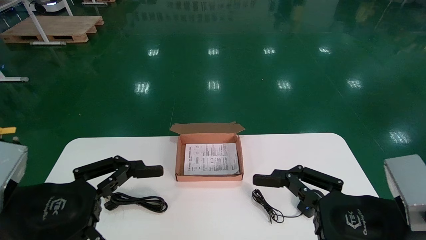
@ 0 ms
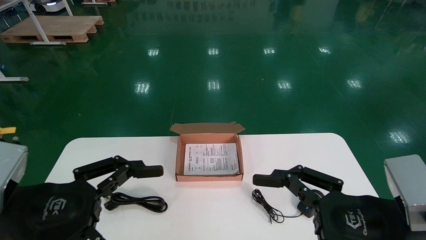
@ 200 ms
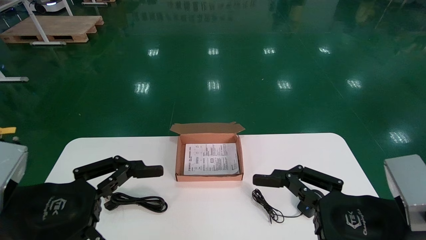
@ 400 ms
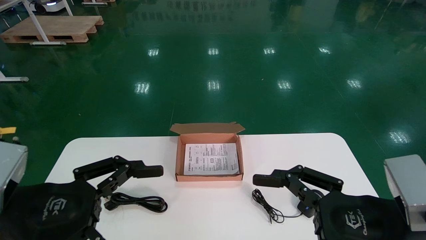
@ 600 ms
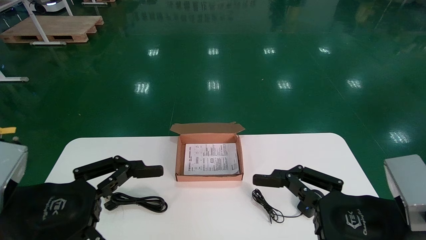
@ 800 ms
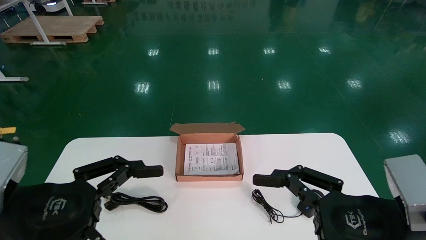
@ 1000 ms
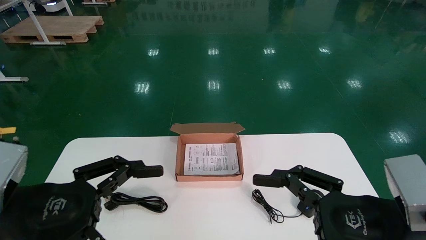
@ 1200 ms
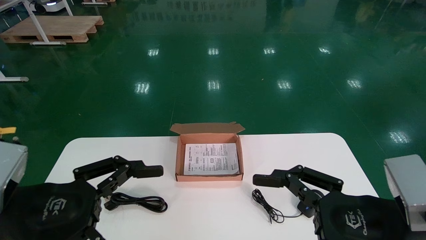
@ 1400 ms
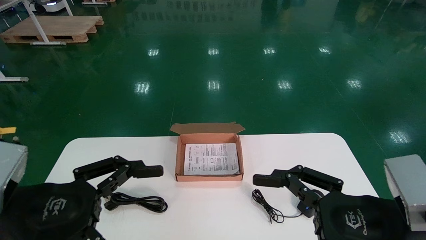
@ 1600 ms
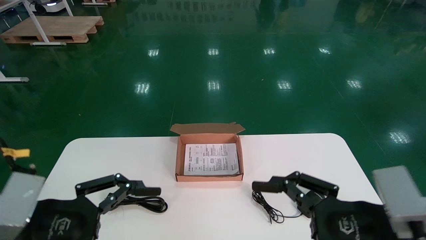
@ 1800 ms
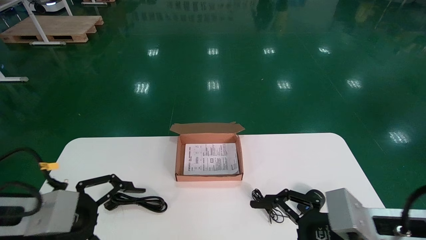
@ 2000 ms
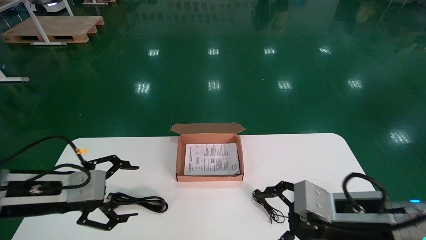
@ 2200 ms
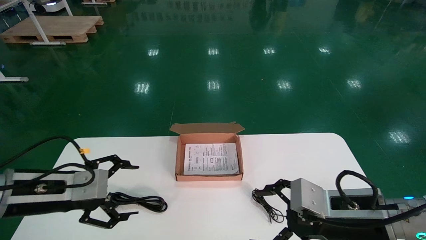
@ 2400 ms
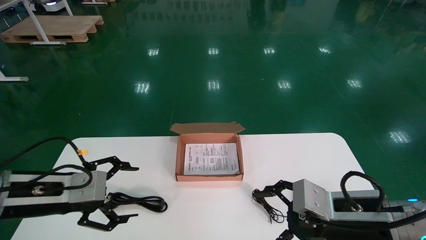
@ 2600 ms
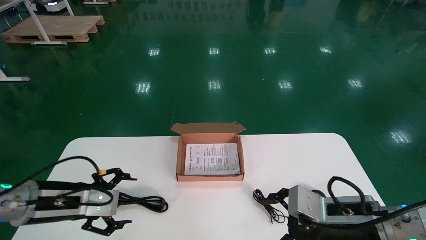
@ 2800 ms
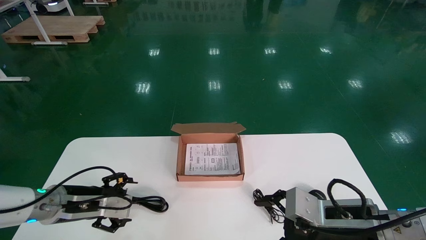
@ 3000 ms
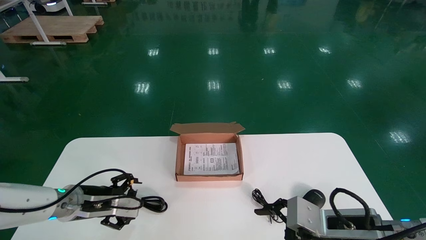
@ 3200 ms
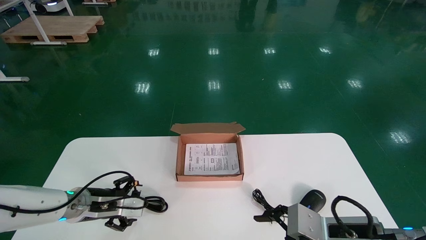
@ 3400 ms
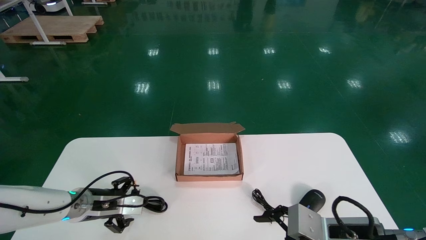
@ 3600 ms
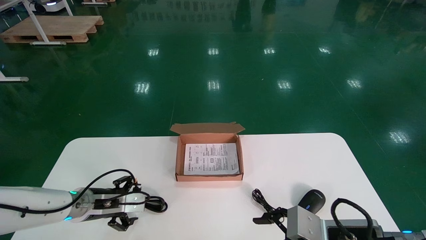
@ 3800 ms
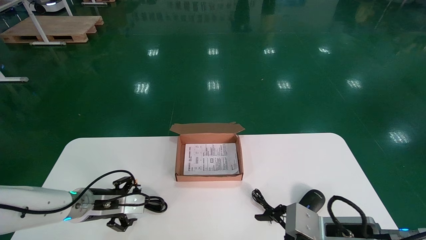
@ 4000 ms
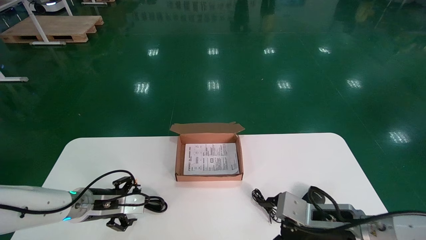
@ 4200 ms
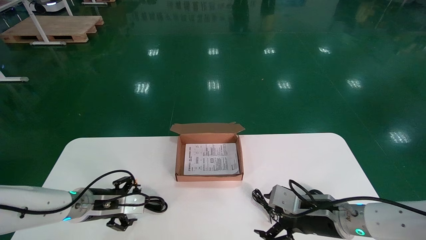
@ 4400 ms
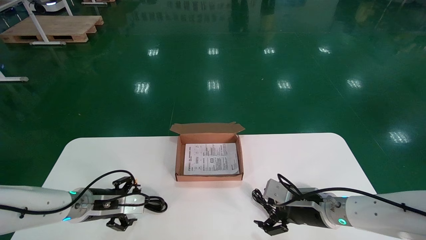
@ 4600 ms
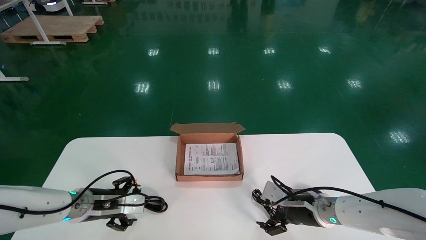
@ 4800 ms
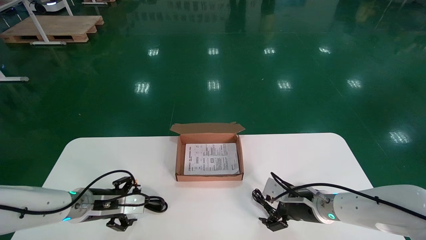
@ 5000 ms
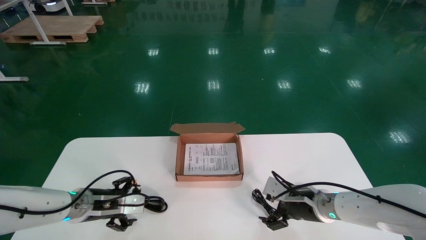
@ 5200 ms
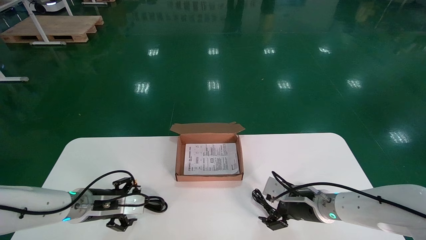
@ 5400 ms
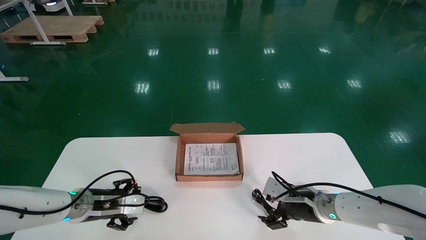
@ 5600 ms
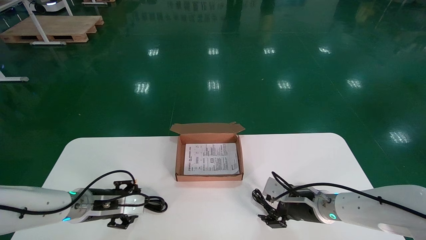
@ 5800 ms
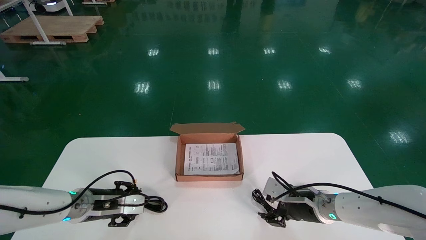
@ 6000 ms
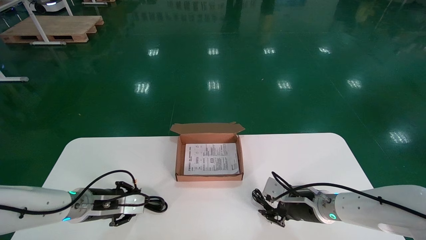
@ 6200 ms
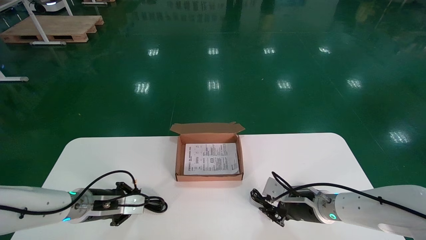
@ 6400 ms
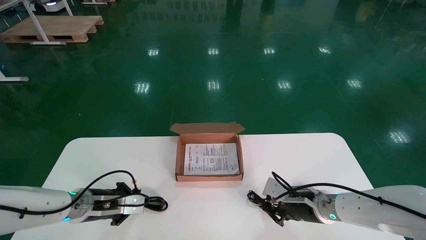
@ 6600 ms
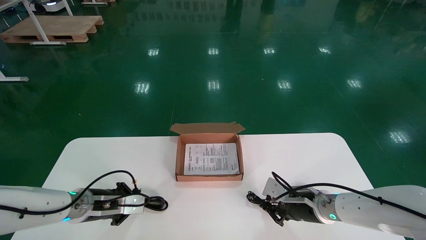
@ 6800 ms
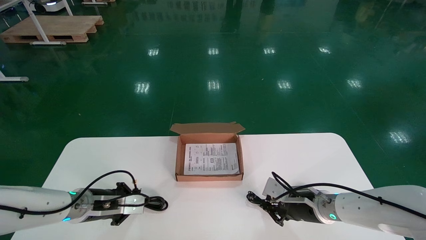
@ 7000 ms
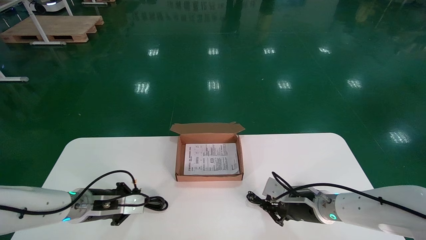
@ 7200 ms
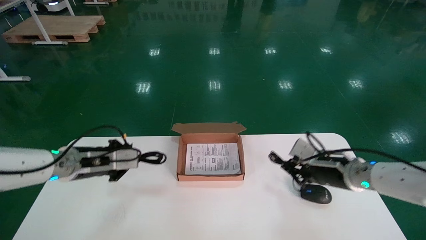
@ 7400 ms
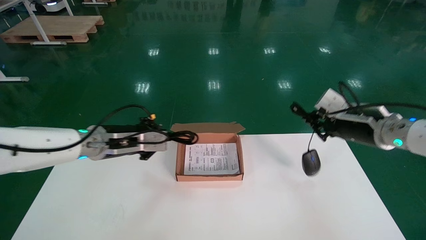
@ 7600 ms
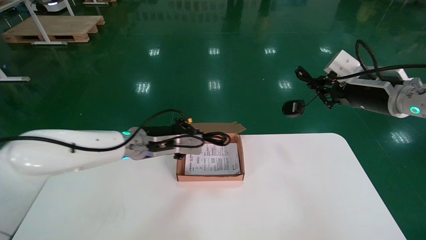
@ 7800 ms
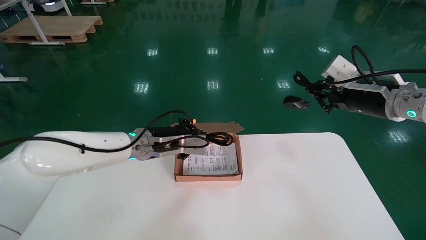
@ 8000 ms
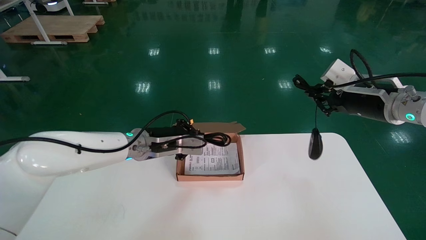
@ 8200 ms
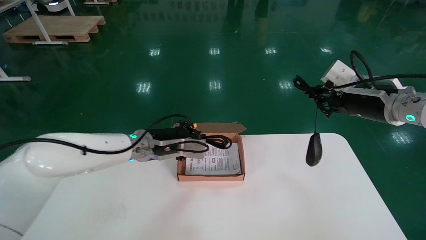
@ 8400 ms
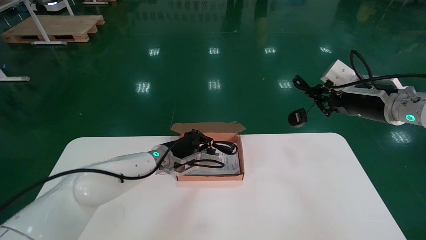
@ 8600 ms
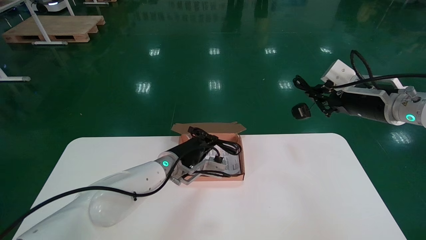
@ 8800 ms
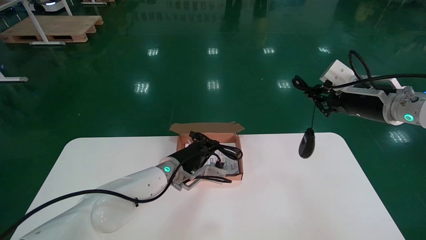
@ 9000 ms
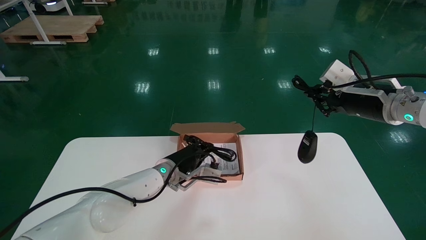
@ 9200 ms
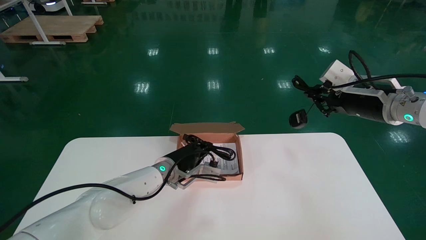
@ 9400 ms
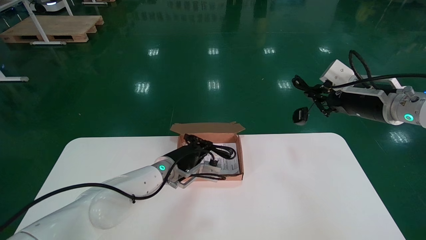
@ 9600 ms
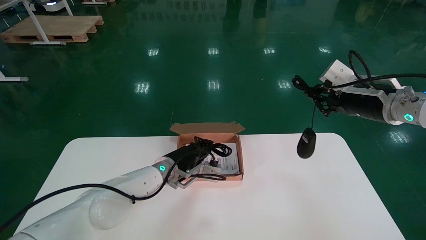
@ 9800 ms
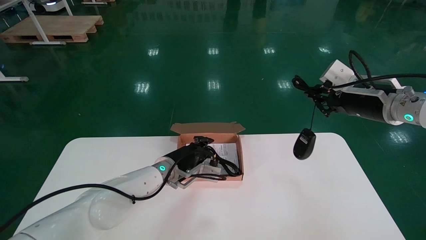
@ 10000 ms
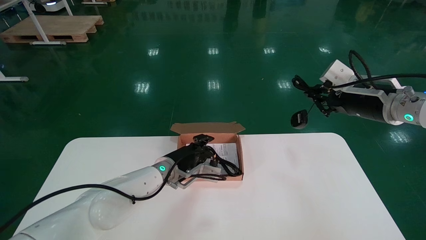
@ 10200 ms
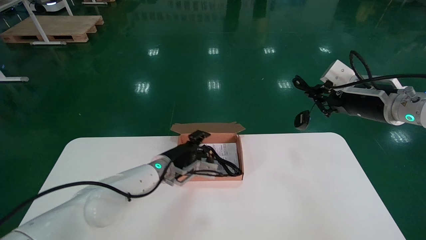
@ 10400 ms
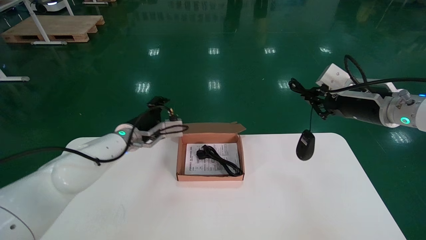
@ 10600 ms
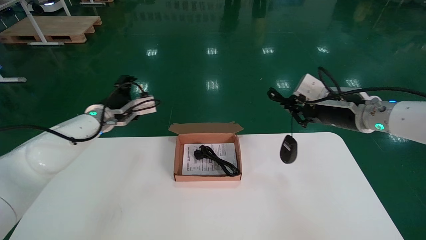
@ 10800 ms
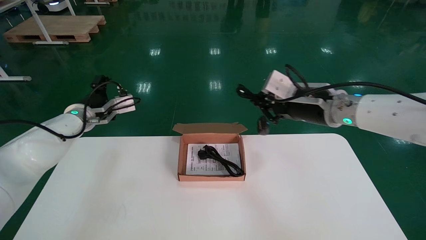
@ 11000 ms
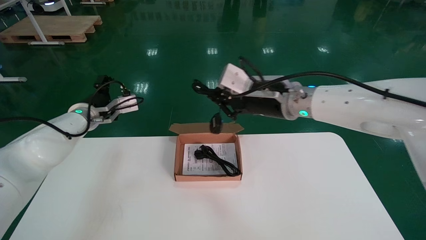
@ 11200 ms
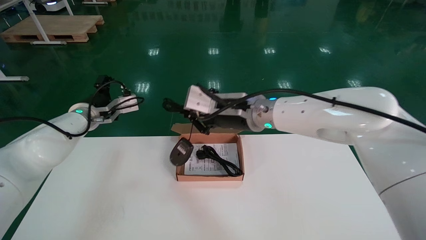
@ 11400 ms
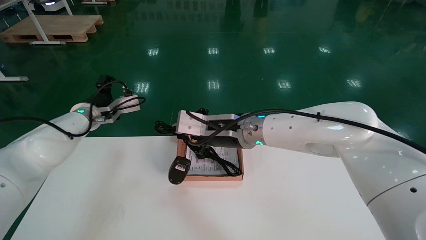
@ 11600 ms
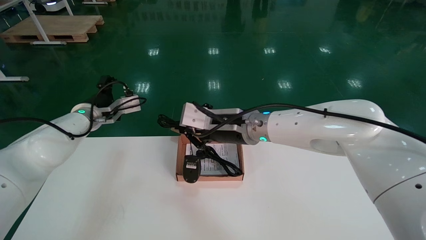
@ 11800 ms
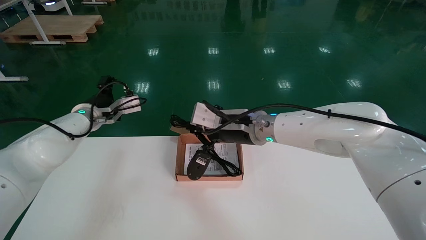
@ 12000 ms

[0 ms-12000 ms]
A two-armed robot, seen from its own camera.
Step, 2000 ms to 6600 ms: Simultaneously pick up the mouse and power cord from the accessory packaging area.
1600 ms to 3000 ms: The left gripper shifts approximately 20 cm forward and downward. Meanwhile the right gripper shifts roughly 10 cm forward and downward.
3000 ms to 4400 ms: The right gripper heads forward, covering some 10 cm. The left gripper changes place by approximately 5 cm.
4400 ms to 6000 ms: The left gripper closes up. The right gripper is displaced forward by some 5 cm.
6000 ms to 7600 ms: Both grippers travel together upward and to the right, some 15 cm. The left gripper closes up; the right gripper closes up.
7600 ms to 9000 ms: The left gripper goes roughly 15 cm to the right and downward. Meanwhile the right gripper shifts roughly 5 cm upward.
9000 ms to 10400 ms: The left gripper heads to the left, covering roughly 5 cm, and opens.
10400 ms to 12000 ms: The right gripper goes roughly 25 cm to the left, while the left gripper heads to the left and upward, covering approximately 20 cm, and opens up.

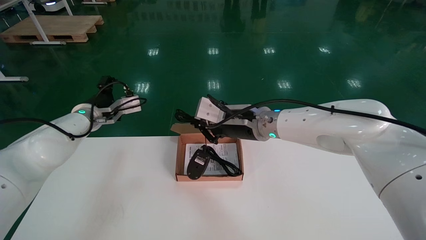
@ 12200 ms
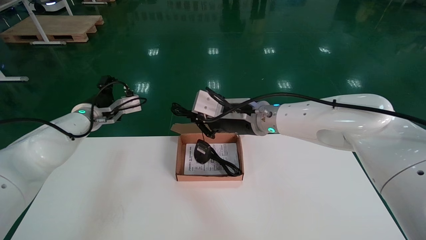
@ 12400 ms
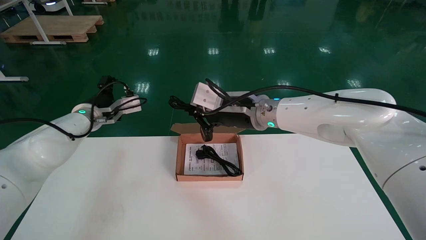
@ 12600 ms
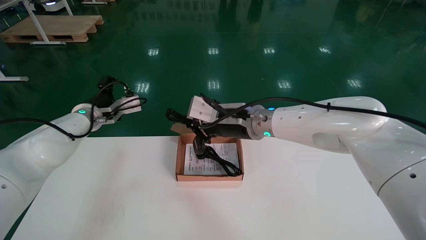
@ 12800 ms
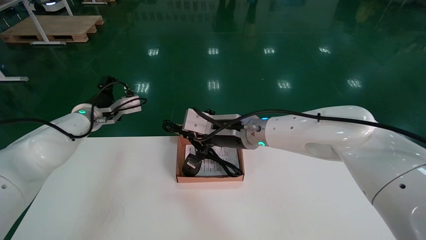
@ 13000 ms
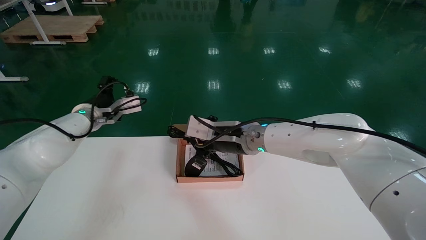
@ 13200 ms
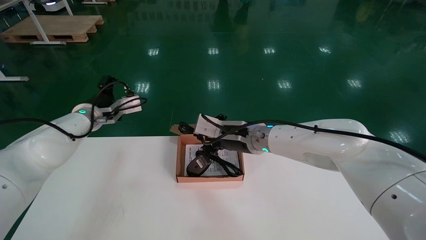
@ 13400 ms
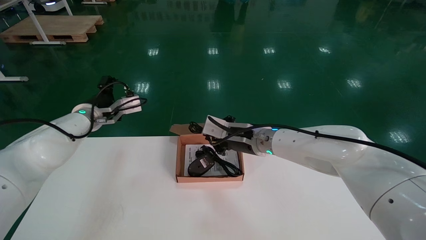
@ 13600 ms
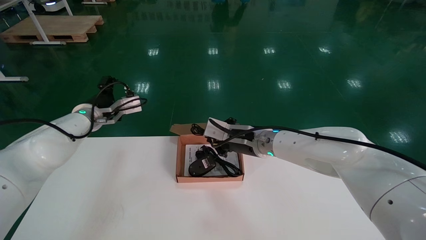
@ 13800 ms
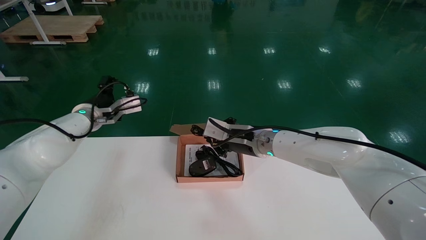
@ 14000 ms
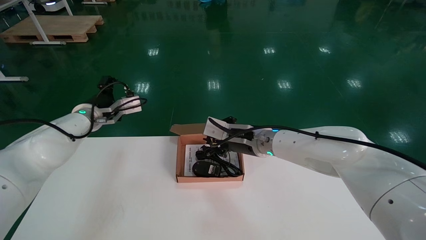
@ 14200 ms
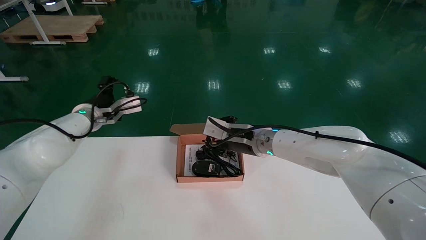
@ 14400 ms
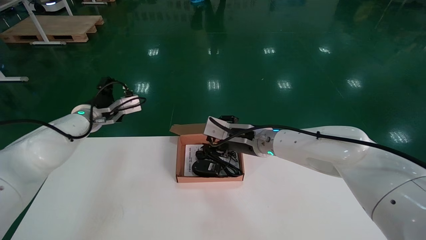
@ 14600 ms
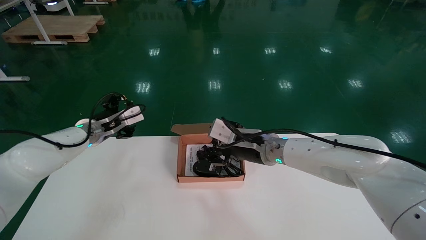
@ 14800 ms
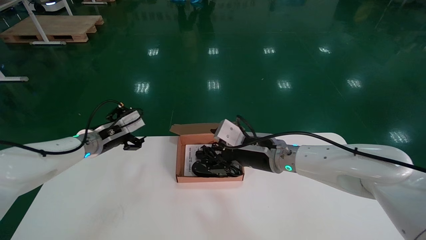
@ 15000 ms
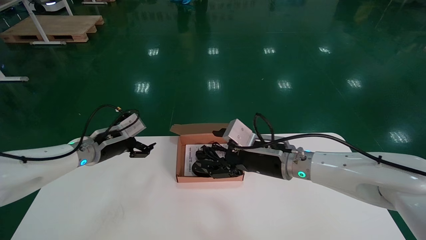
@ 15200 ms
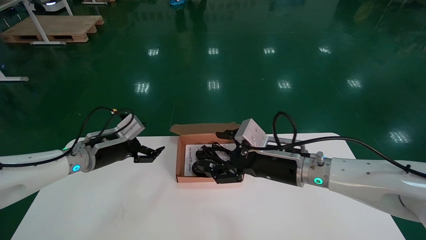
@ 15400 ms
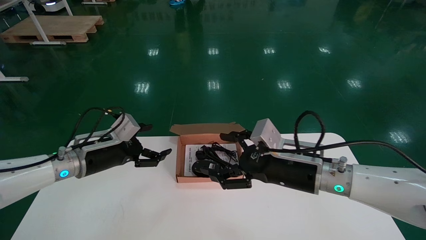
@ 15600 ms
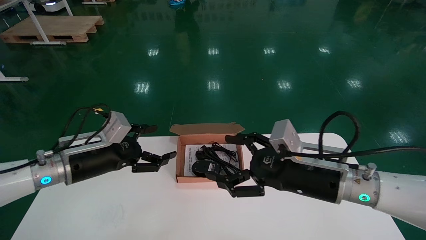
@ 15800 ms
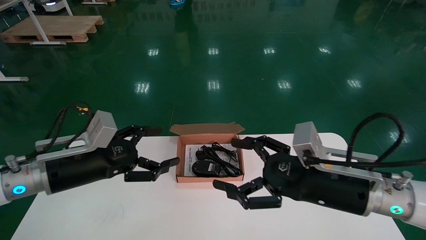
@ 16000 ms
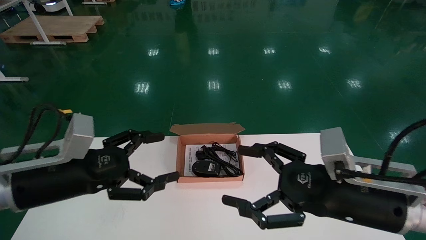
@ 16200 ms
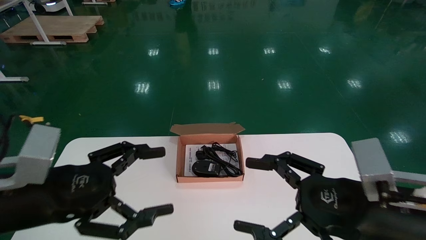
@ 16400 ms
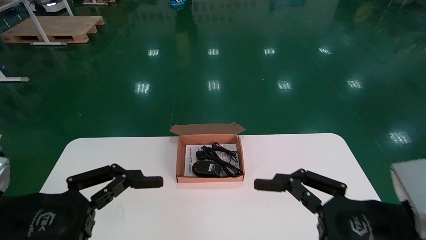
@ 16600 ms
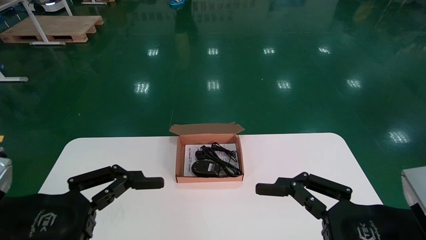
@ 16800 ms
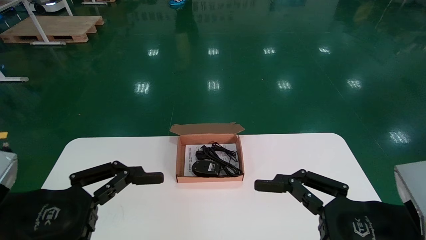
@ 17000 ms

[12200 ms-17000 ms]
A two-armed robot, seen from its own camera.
12200 ms to 13800 ms: The right gripper shifts about 5 cm downward.
13800 ms to 15400 ms: The right gripper shifts about 10 cm backward and to the right, and opens up. Meanwhile the left gripper travels downward and backward by roughly 10 cm.
15400 ms to 17000 ms: The right gripper moves backward and to the right, roughly 25 cm; the left gripper goes about 25 cm backward.
